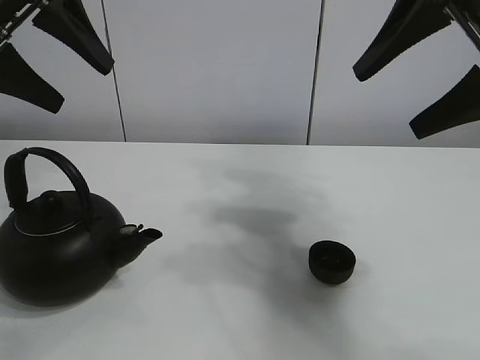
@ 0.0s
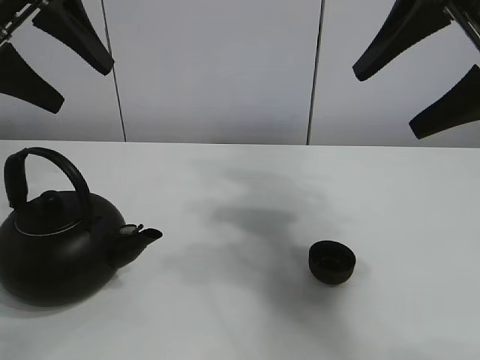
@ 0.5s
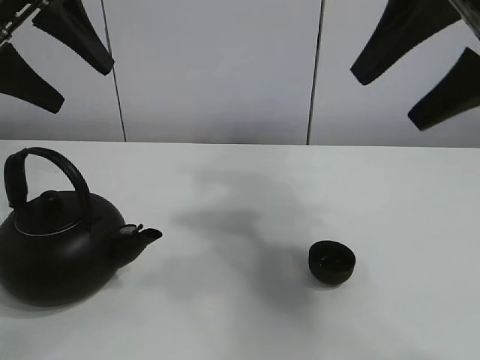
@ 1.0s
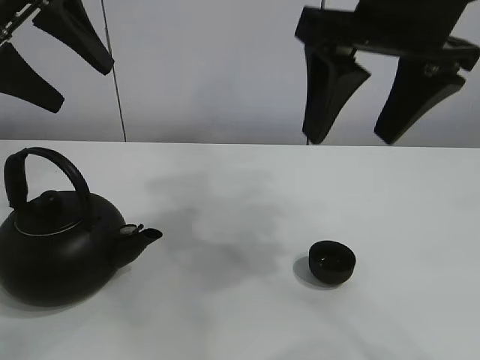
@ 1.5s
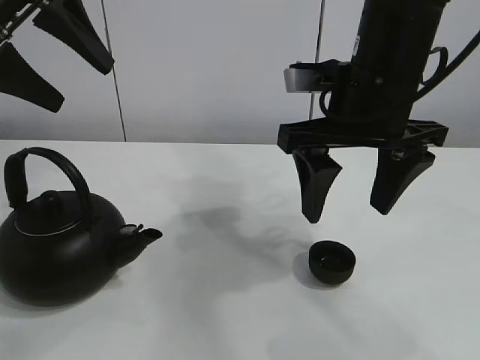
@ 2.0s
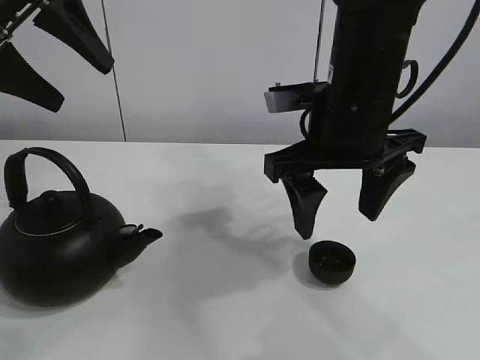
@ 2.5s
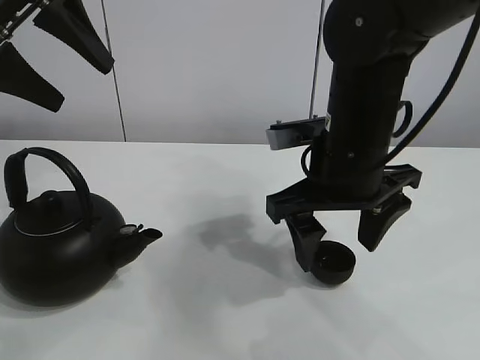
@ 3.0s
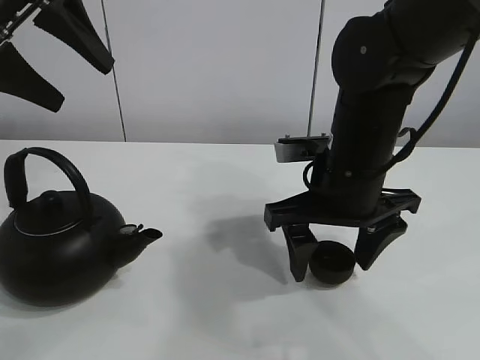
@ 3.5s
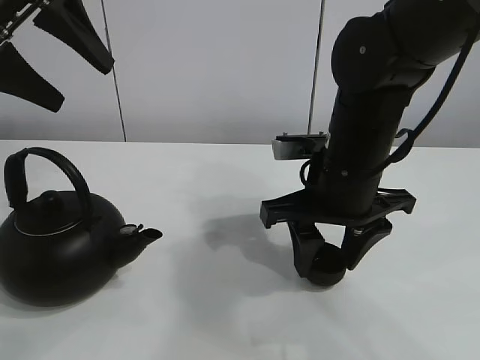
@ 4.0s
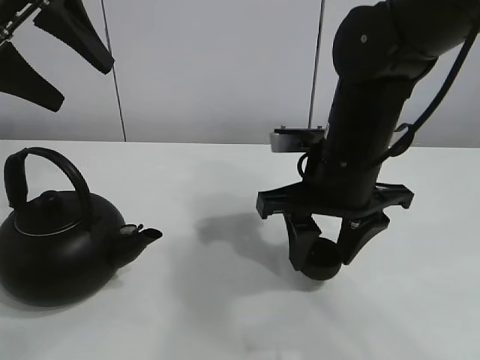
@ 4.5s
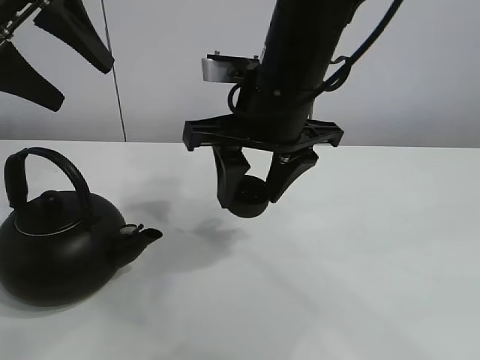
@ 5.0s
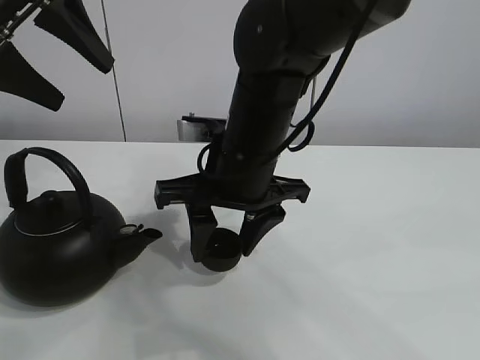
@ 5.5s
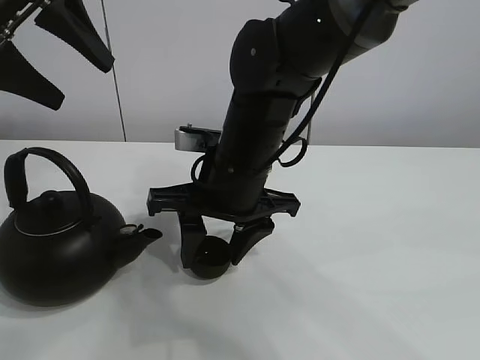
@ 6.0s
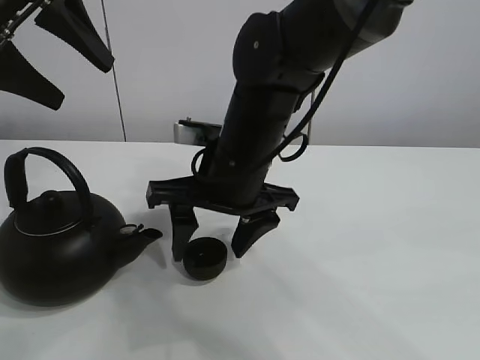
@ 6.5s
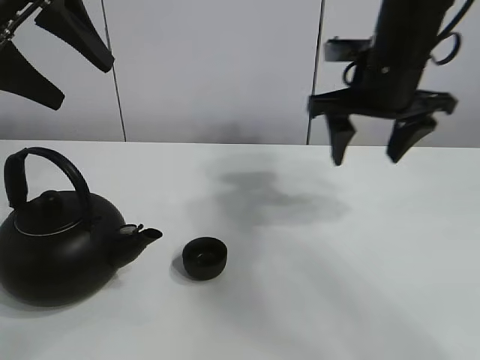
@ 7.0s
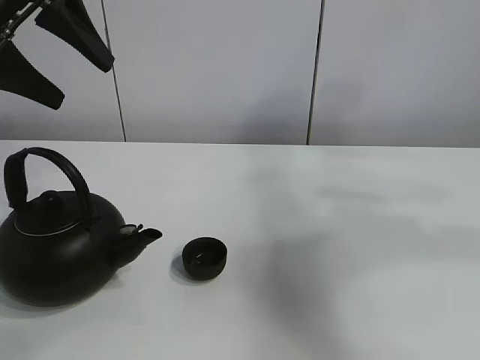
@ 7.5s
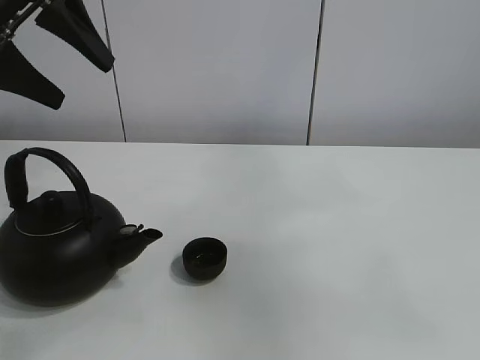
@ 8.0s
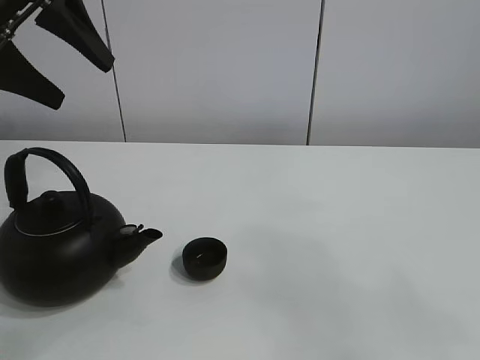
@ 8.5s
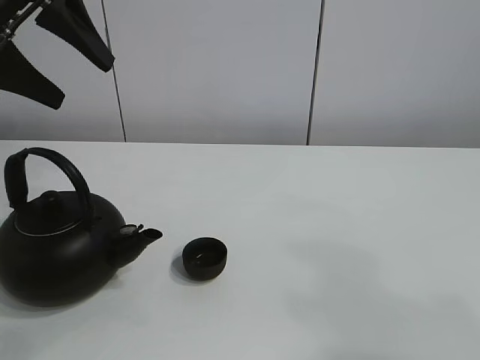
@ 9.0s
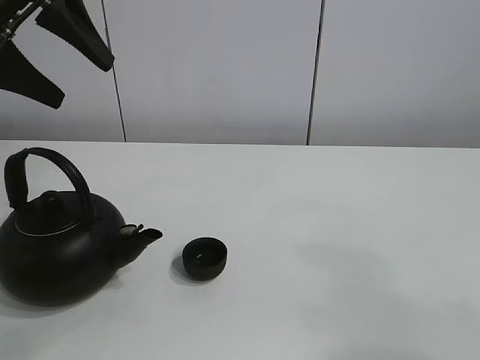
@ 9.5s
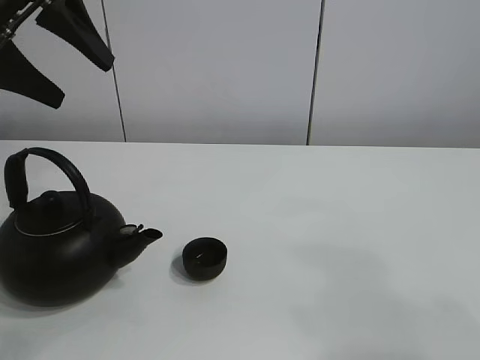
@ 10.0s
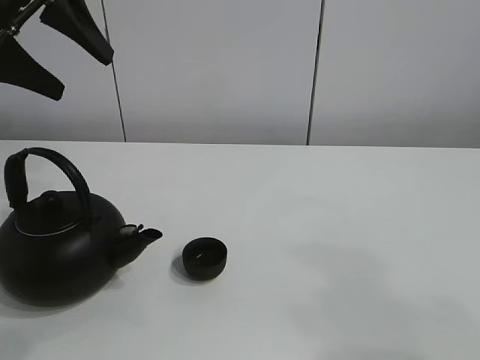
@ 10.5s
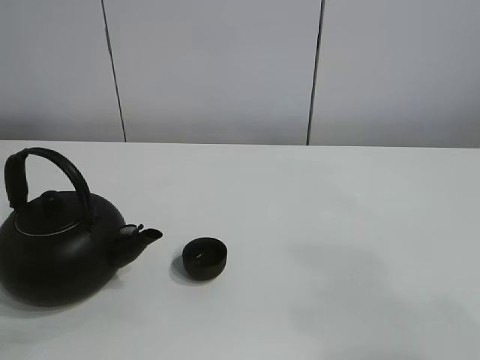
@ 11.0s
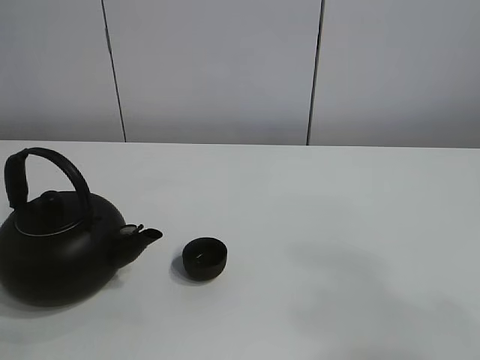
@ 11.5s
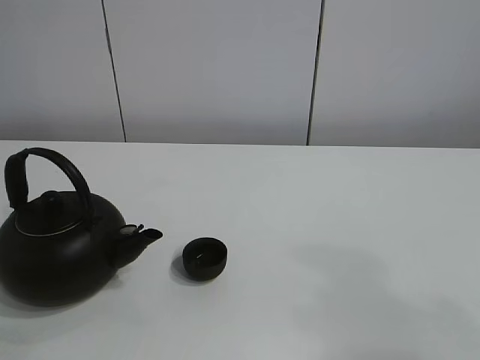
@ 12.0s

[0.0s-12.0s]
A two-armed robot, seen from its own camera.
Task of the whole recording: pour tea into the teacup.
Step, 0.0s to 4.0s: Pick up the teacup with the right gripper.
Step, 4.5s to 6.0s: Place the teacup in the center of view with the right gripper.
2.0s to 4.0s: The right gripper heads downward, covering roughly 10 cm, and closes up.
4.0s to 6.0s: The right gripper is displaced to the left by roughly 10 cm.
6.0s to 8.0s: The right gripper moves upward, backward and to the right, about 60 cm, and opens its fingers.
8.0s to 10.0s: The right gripper moves downward, some 20 cm.
10.0s to 12.0s: The left gripper travels backward by approximately 20 cm.

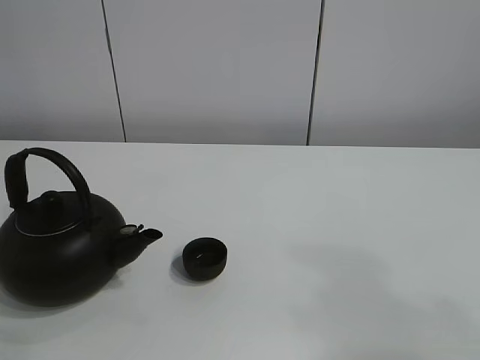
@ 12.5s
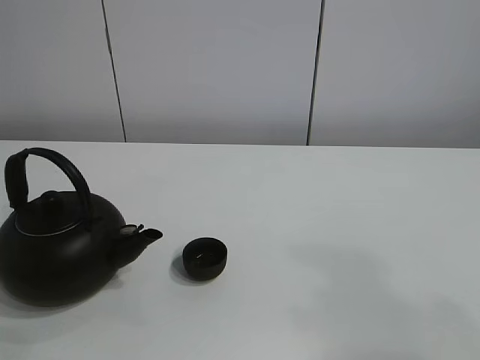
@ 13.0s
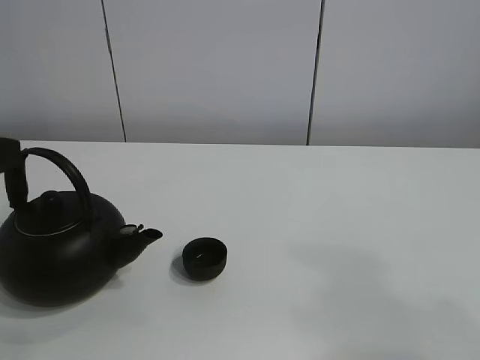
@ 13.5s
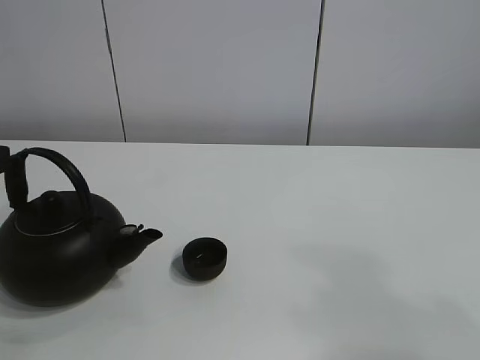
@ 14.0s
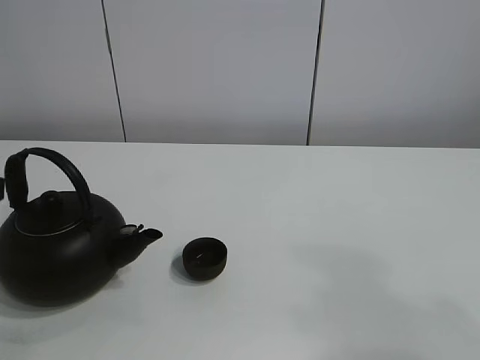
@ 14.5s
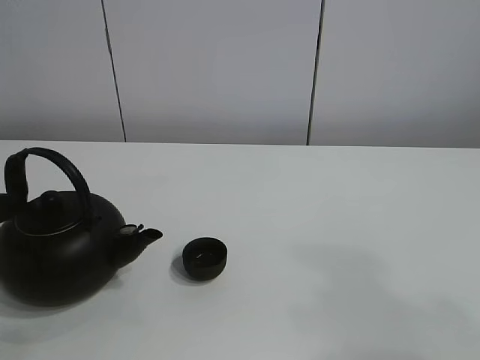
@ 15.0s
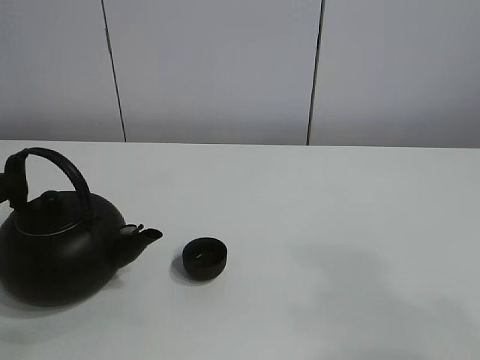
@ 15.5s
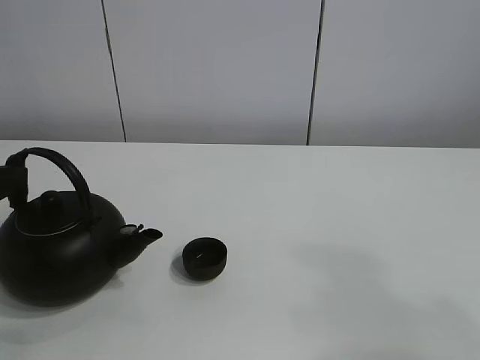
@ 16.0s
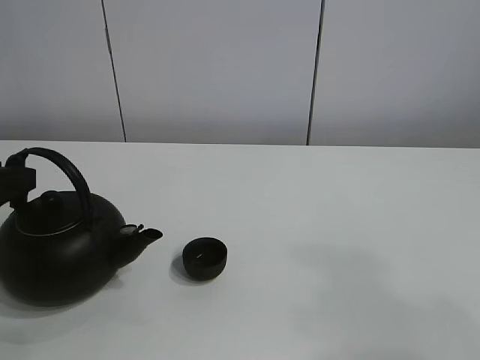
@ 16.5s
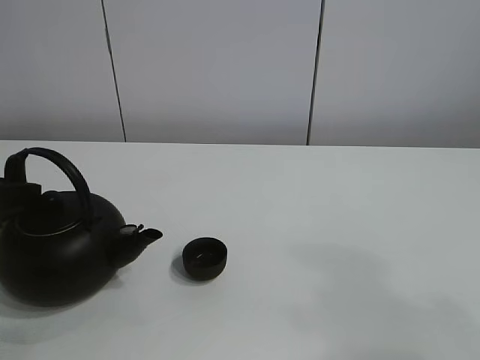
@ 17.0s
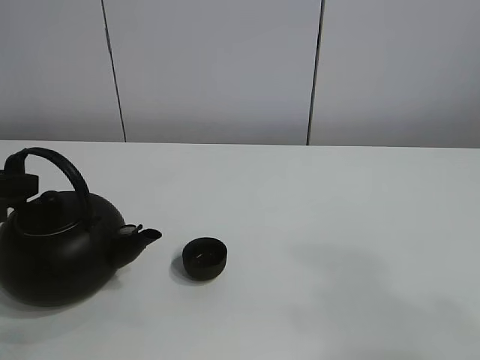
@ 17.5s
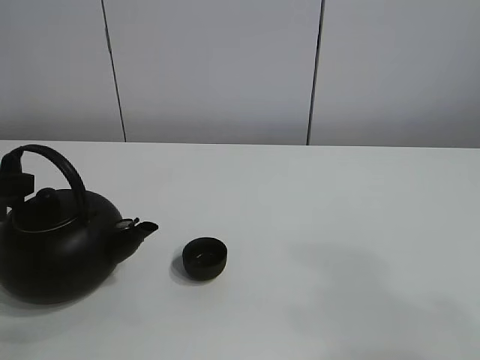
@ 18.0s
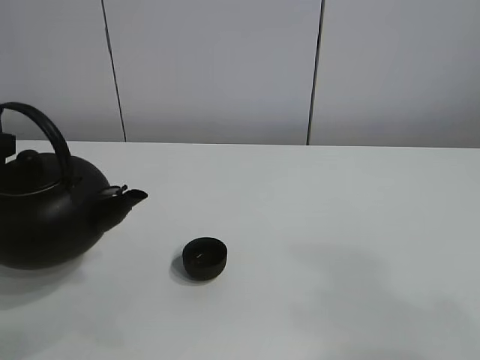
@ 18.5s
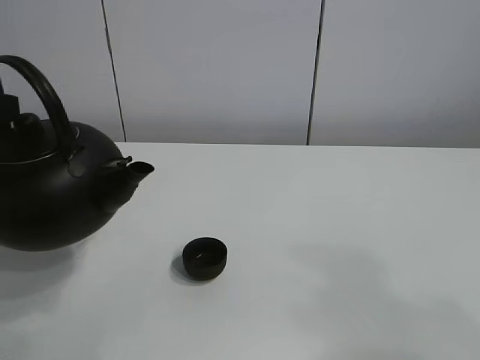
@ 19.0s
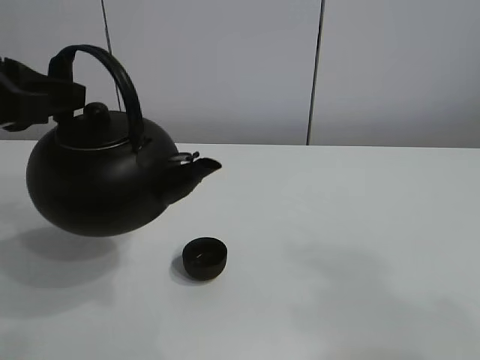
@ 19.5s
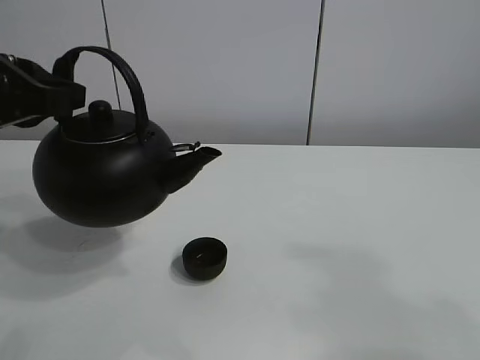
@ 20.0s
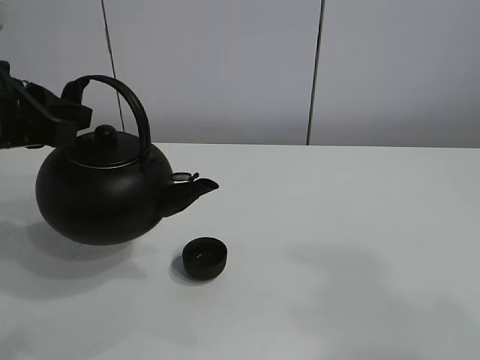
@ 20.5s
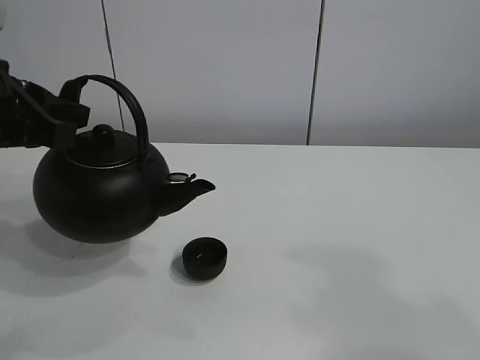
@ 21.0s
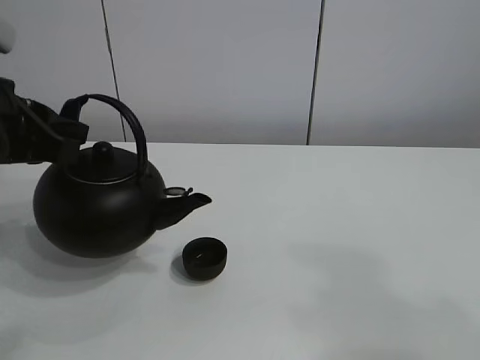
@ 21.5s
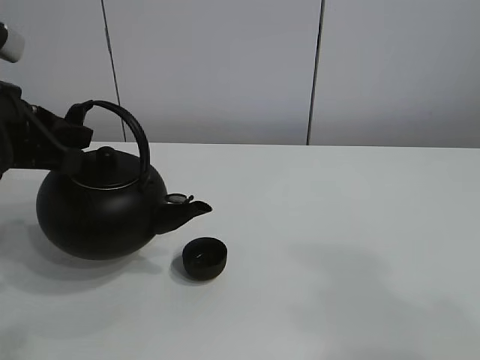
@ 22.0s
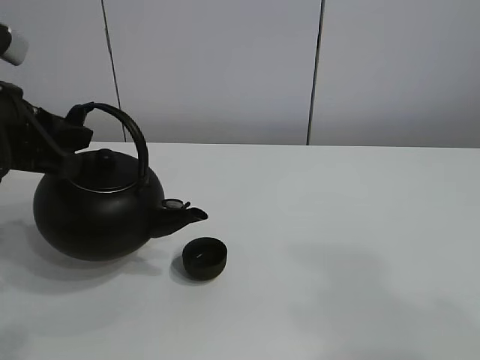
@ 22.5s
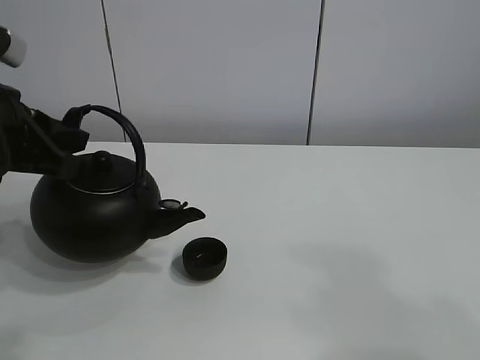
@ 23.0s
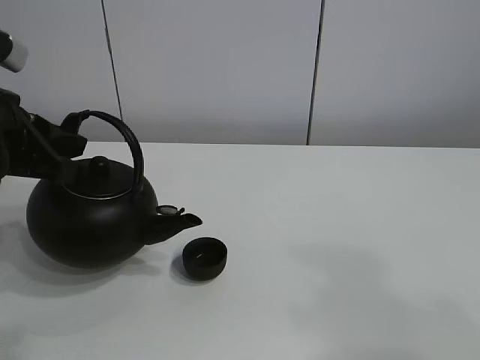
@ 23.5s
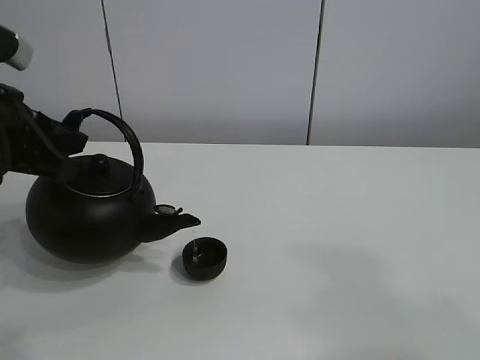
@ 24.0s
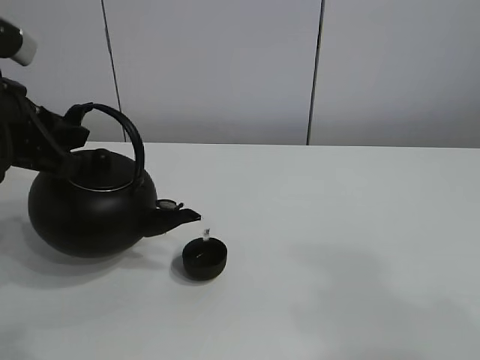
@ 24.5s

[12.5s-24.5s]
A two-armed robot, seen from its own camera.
Task of the whole recording: pour tea into the teacup.
Step, 12.5s to 18.0s: Pick up the teapot with the left gripper.
16.5s to 18.5s: The left gripper closes.
18.5s to 20.5s: The left gripper travels to the right by roughly 5 cm.
20.5s to 22.5s: The grippers make only small movements.
22.5s to 24.5s: Neither gripper changes place.

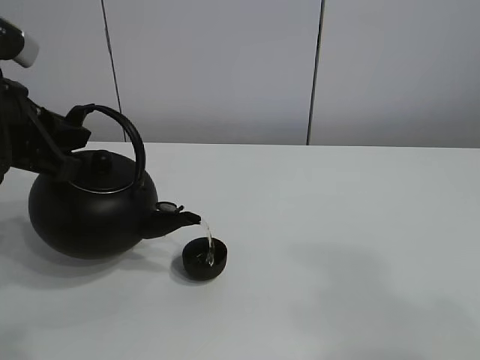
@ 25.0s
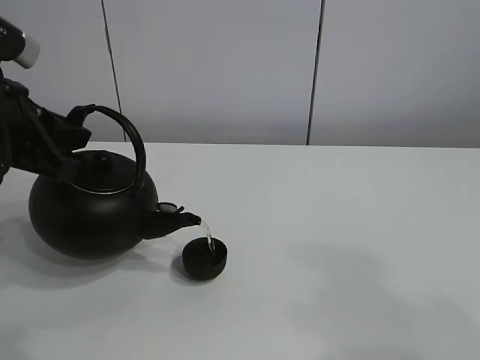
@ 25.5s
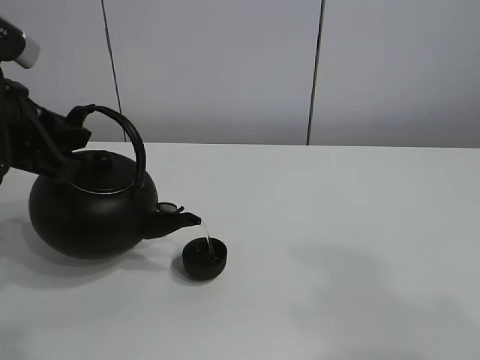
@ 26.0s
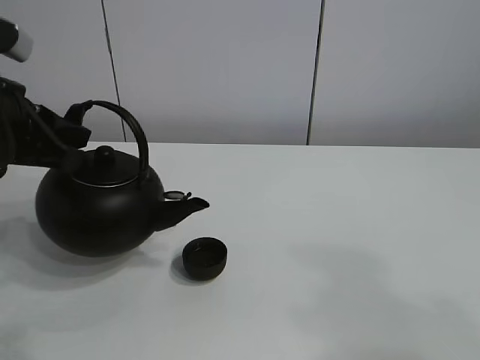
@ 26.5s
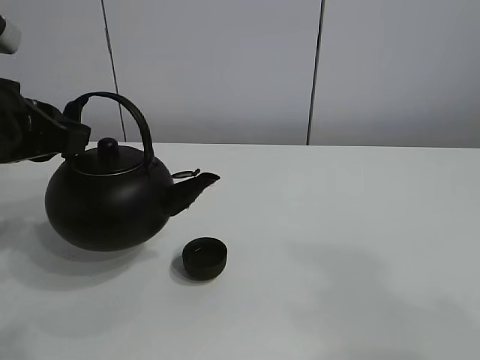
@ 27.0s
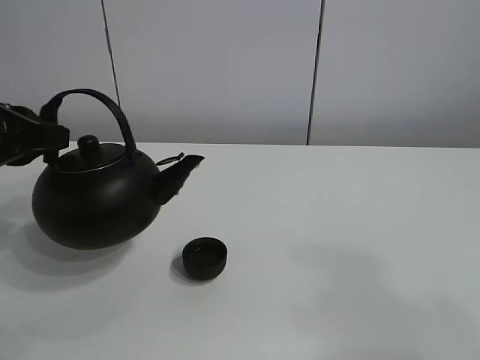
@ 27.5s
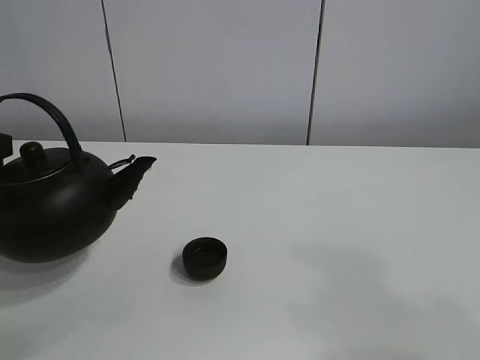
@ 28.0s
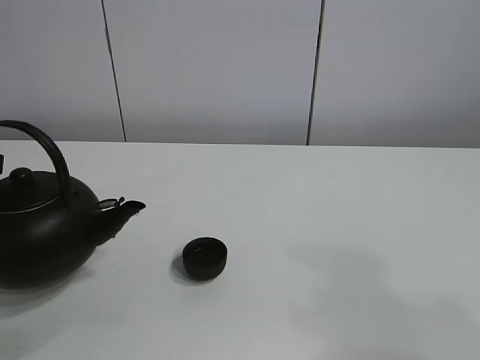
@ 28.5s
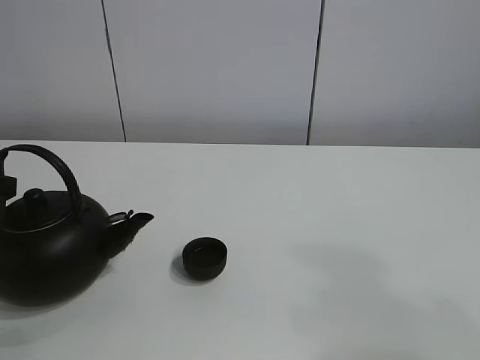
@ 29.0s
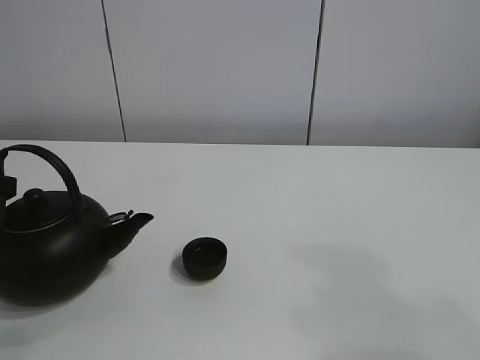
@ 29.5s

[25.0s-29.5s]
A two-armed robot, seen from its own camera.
Task of the whole recording: pour tea into the teacup.
25.0s to 27.0s: There are only small adjustments of the grippers.
27.0s to 29.5s: The left gripper travels to the left and downward by about 10 cm.
